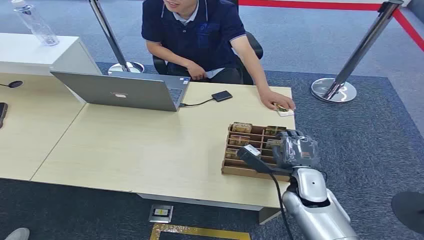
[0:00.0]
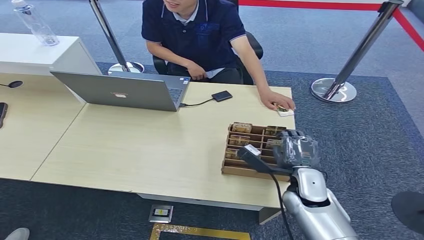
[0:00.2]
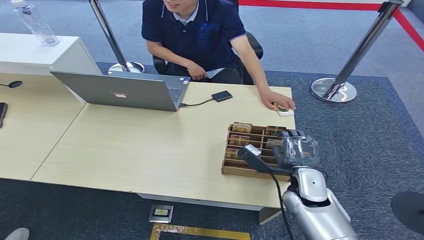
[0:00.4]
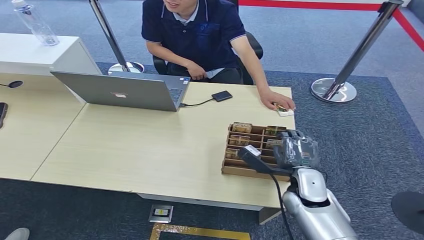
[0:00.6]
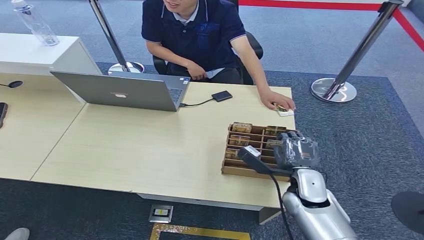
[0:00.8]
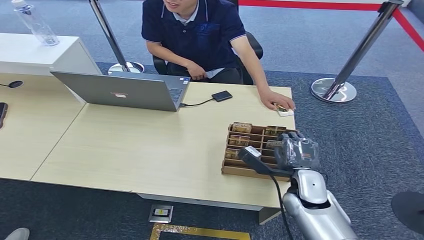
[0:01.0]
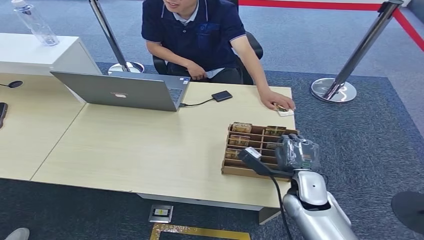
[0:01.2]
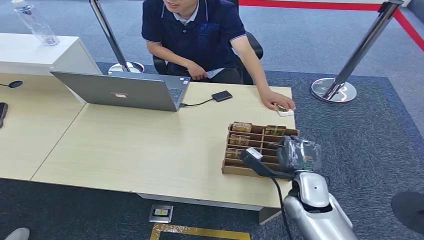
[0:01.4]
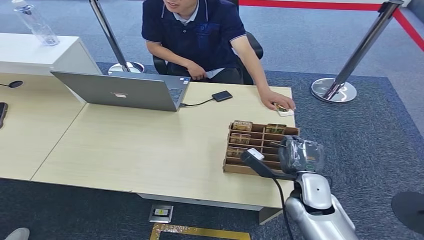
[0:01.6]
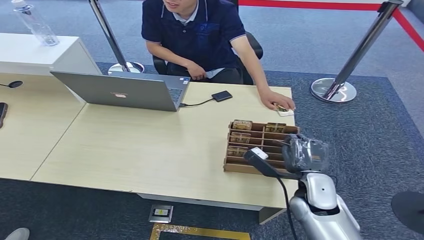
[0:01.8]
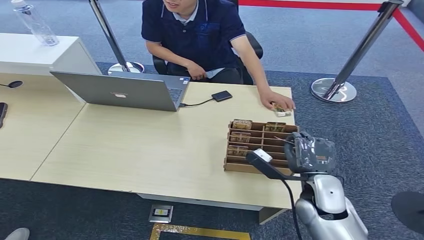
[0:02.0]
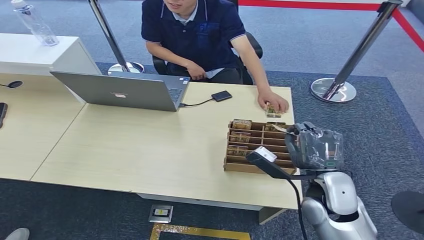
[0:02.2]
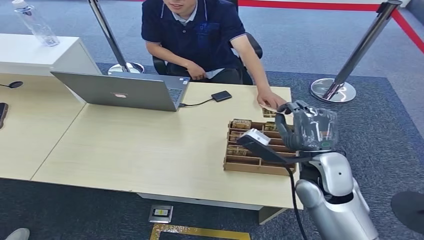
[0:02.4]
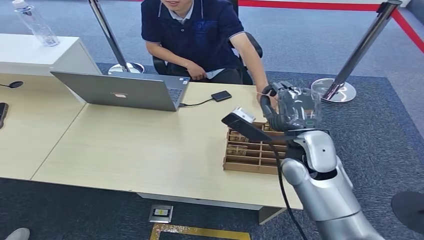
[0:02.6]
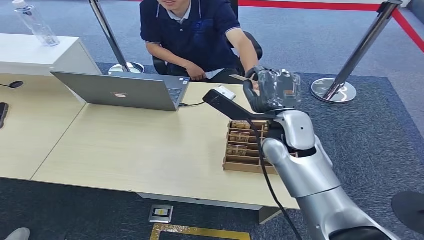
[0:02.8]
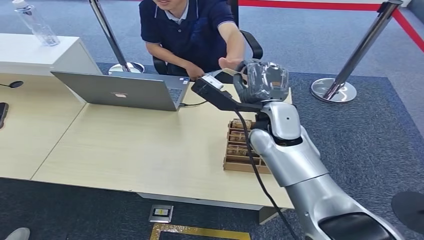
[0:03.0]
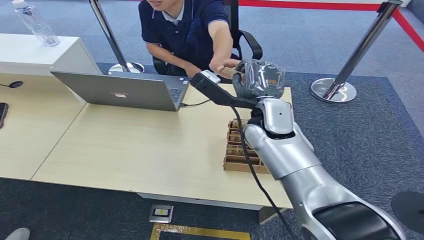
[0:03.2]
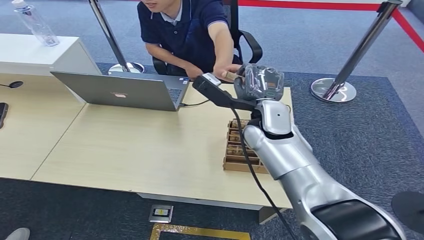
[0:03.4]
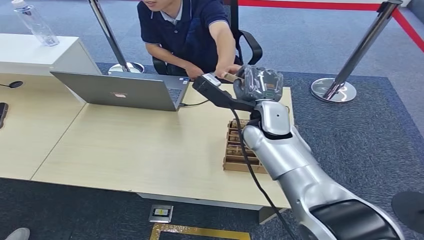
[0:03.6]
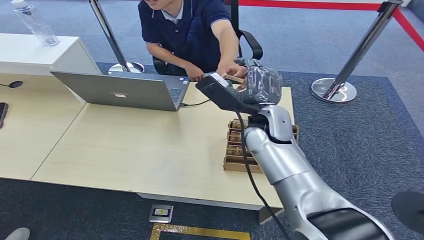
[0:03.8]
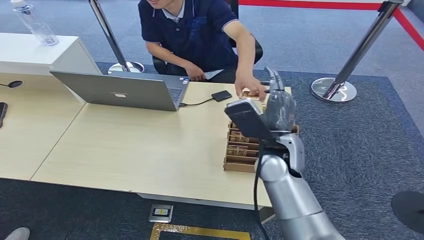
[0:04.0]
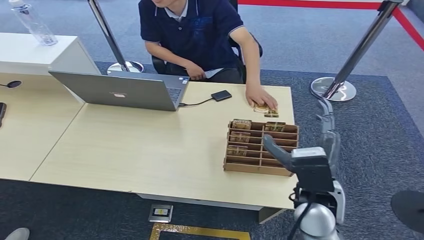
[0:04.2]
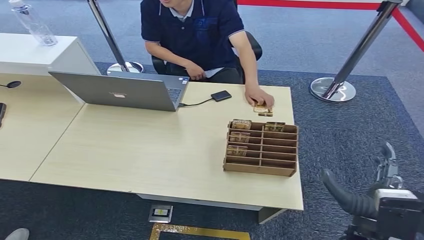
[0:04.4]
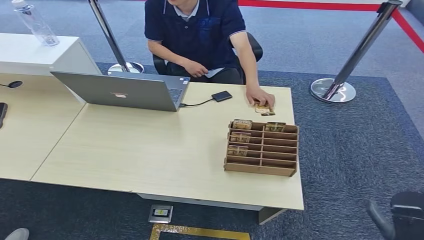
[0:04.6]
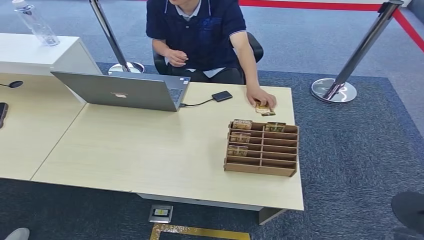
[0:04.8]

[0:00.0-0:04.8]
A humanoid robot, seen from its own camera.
Step, 0:00.0 to 0:02.4: Pick up the room card from the card holder.
Step, 0:02.8 to 0:04.8: Hand the room card to the target.
0:01.6 to 0:03.2: The right hand heads upward, forward and to the left, covering approximately 25 cm.
0:03.2 to 0:04.8: The right hand moves backward, downward and to the right, roughly 50 cm.
